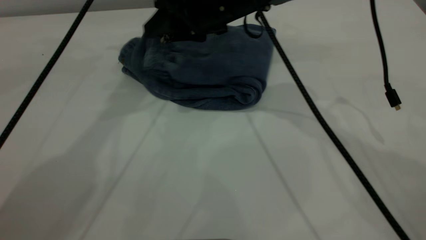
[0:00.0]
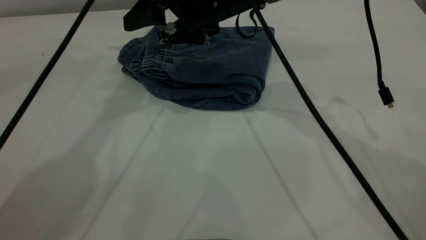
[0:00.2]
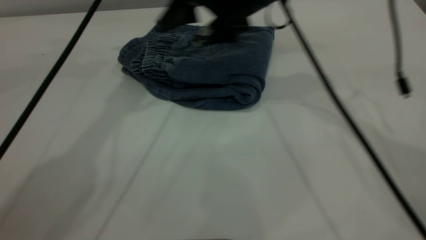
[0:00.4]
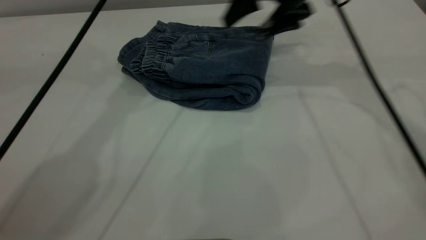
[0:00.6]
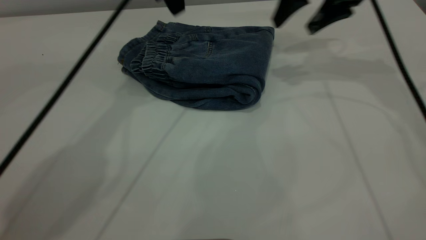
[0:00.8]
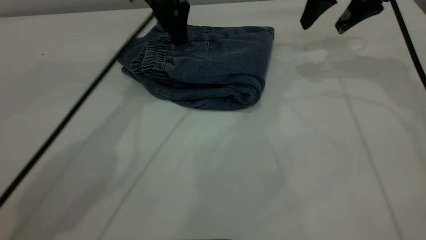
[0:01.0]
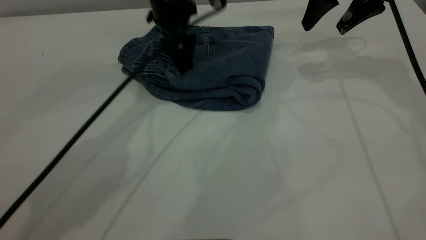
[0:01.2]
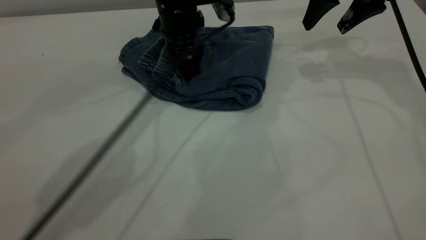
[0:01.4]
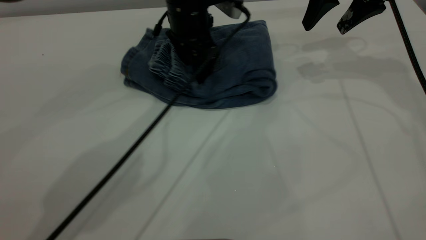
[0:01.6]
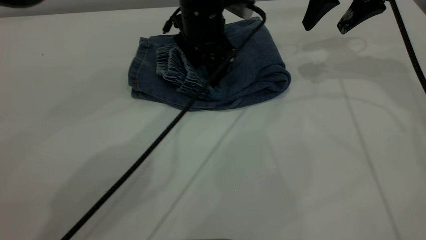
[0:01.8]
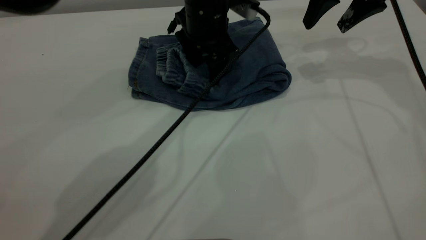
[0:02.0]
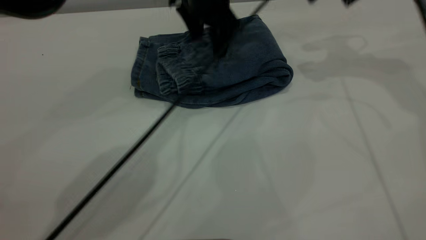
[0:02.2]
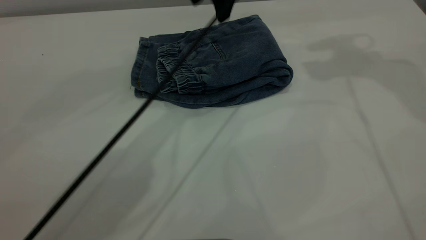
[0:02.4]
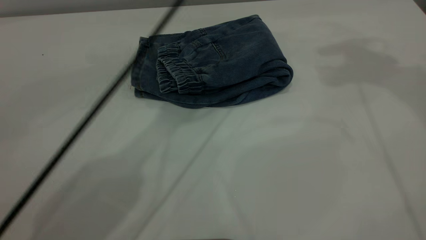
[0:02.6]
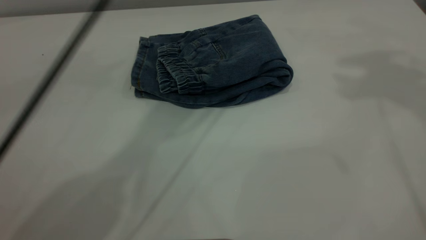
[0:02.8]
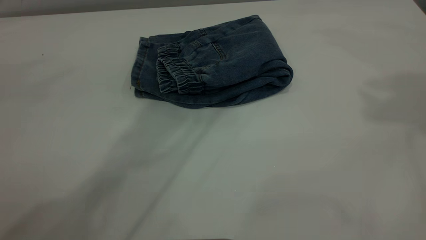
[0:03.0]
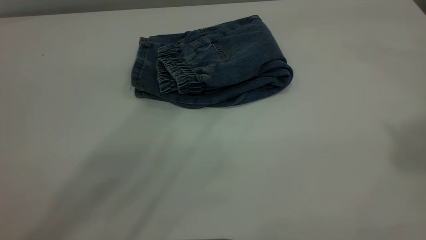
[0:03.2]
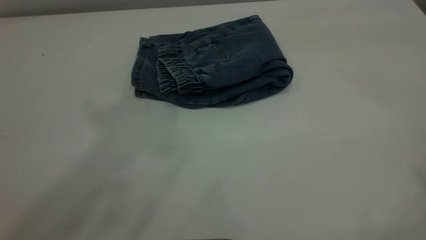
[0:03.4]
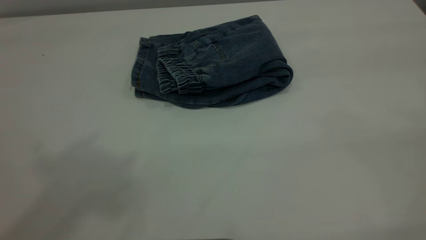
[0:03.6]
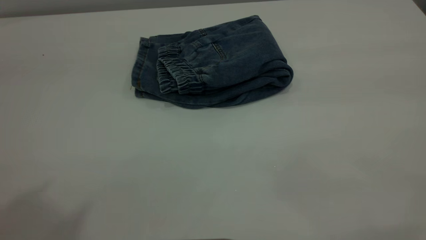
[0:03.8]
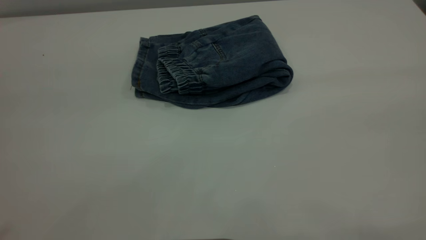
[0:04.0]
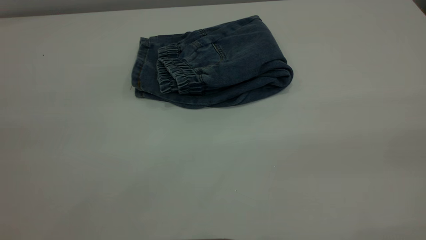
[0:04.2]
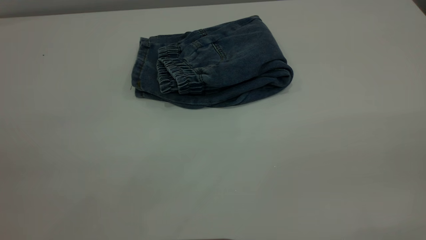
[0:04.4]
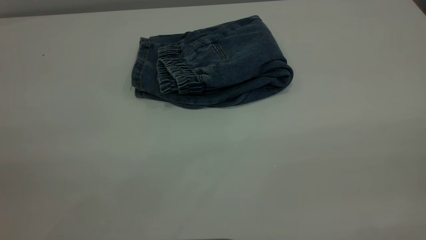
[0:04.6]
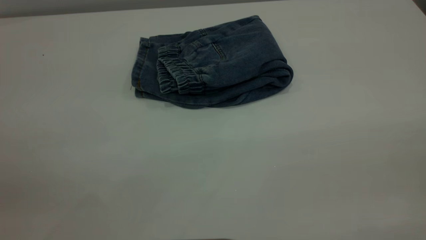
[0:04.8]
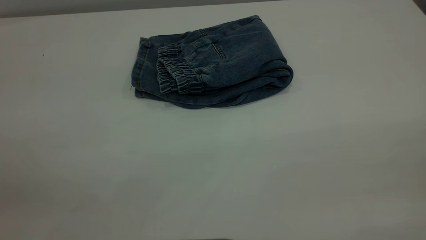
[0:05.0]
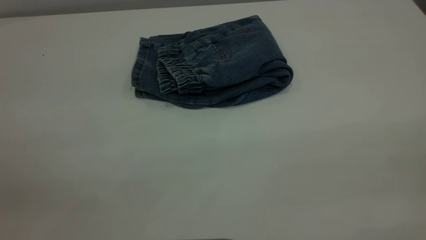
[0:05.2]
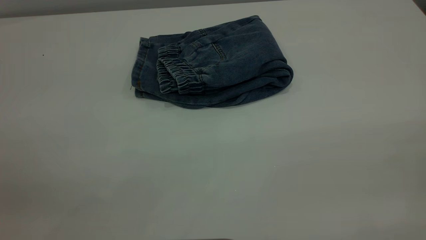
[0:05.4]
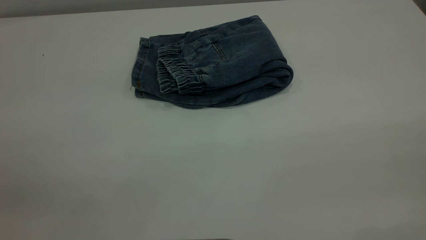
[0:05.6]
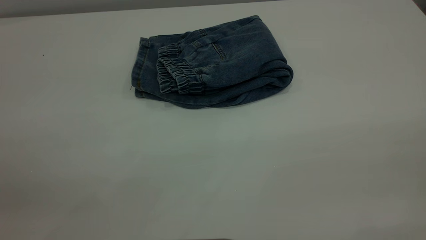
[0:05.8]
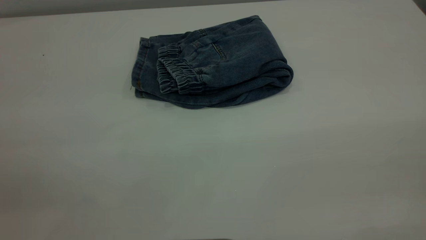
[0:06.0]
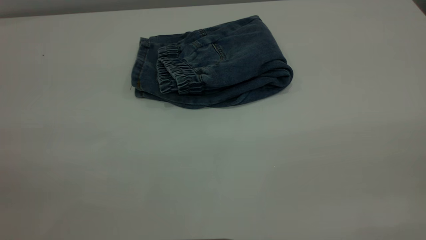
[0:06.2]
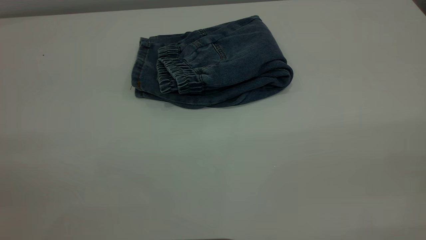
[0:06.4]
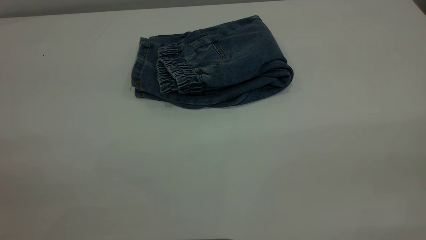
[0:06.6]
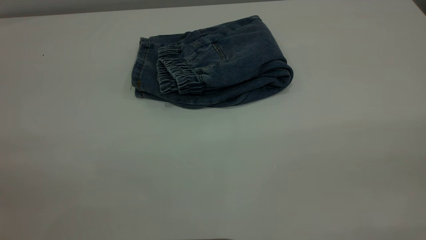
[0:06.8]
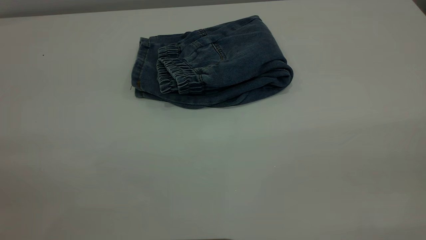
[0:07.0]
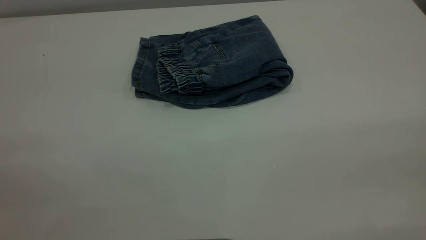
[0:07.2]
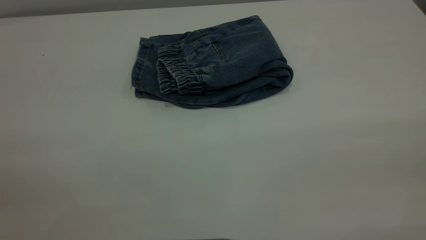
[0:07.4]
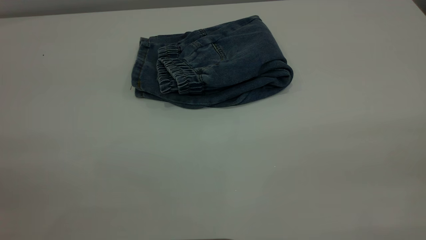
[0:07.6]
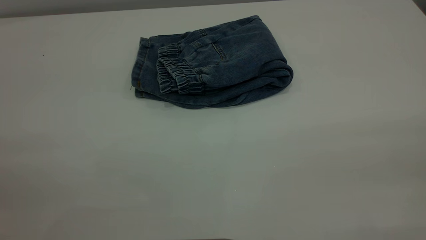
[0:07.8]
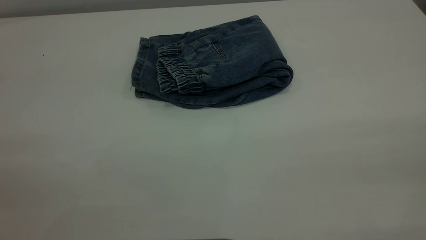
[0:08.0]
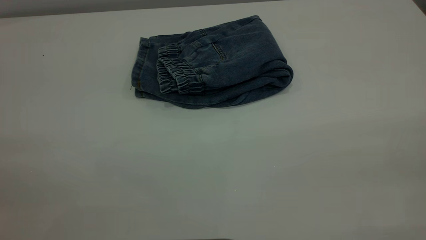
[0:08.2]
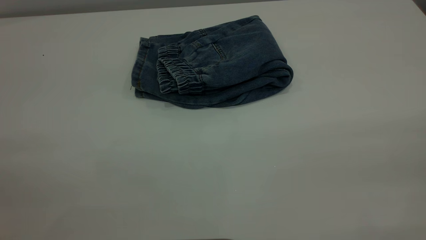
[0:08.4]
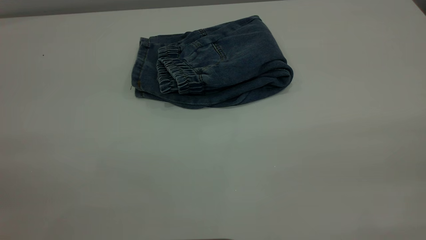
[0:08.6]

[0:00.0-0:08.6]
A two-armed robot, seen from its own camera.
0:00.0 to 0:01.4: The right gripper goes some 20 cm to the right, and opens. The left gripper moves downward and to the right, about 20 cm.
0:01.4 to 0:02.8: The two grippers go about 25 cm upward.
0:02.8 to 0:04.4: The left gripper goes roughly 50 cm backward and to the left.

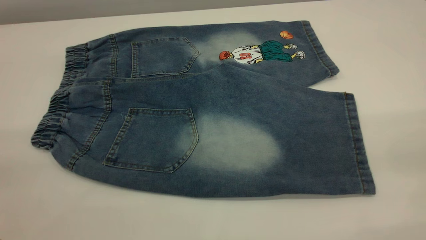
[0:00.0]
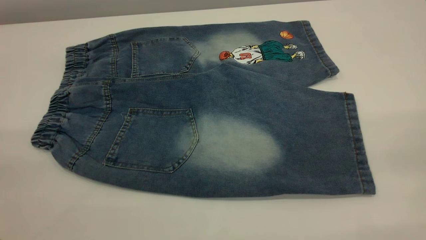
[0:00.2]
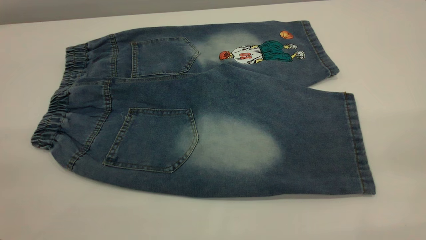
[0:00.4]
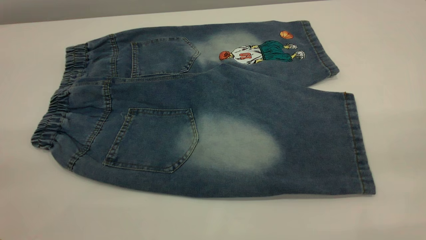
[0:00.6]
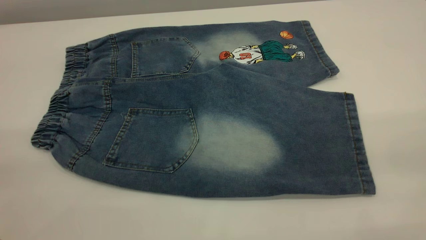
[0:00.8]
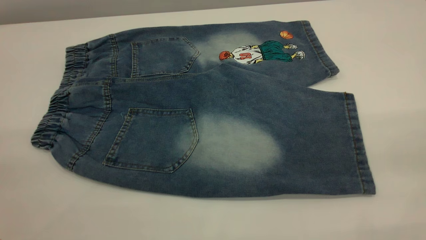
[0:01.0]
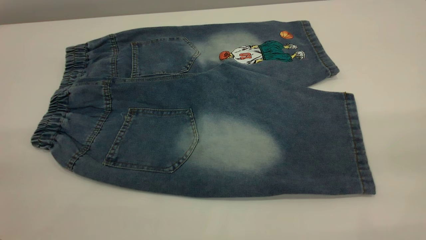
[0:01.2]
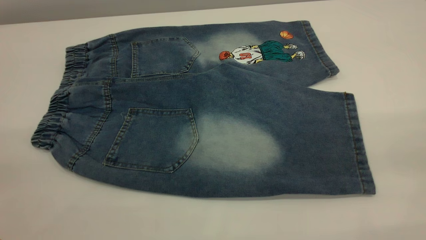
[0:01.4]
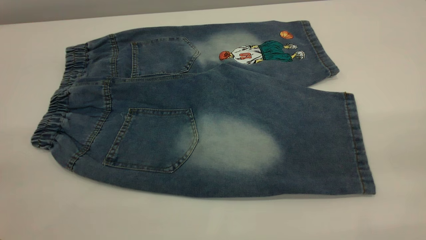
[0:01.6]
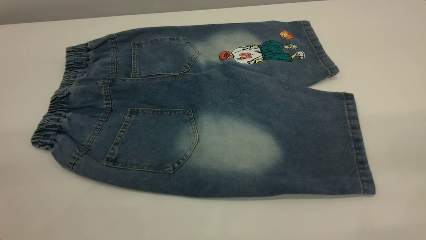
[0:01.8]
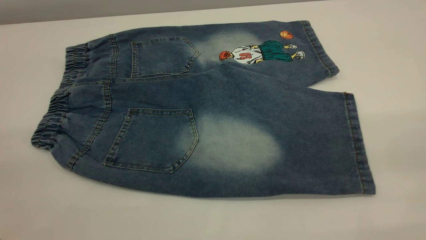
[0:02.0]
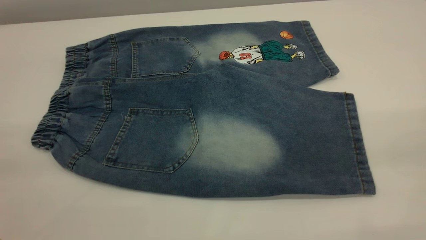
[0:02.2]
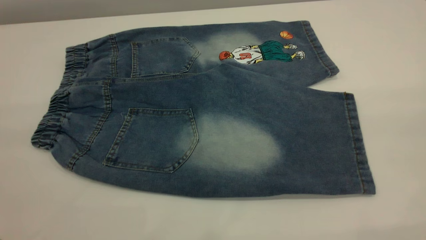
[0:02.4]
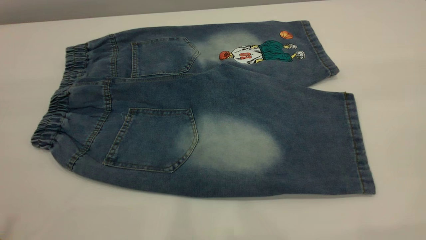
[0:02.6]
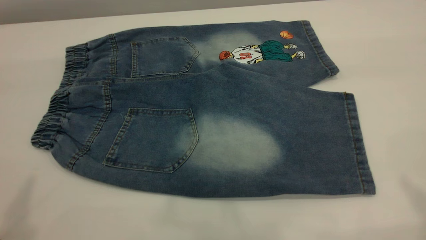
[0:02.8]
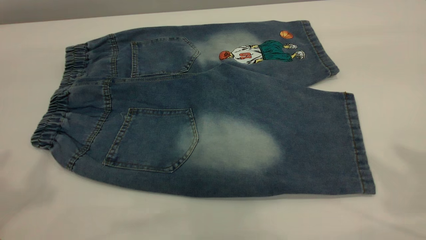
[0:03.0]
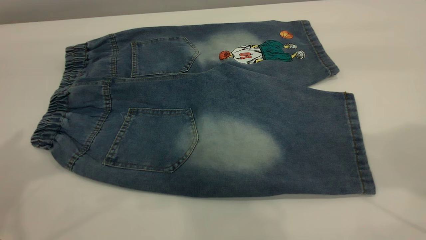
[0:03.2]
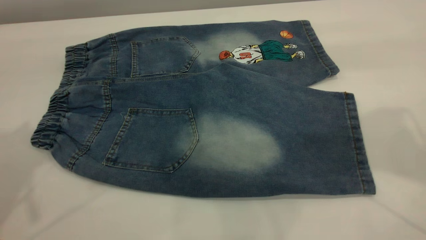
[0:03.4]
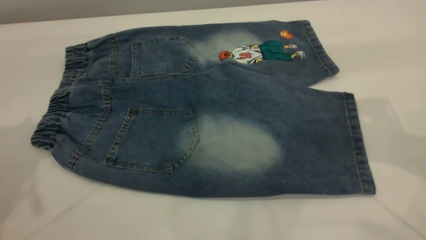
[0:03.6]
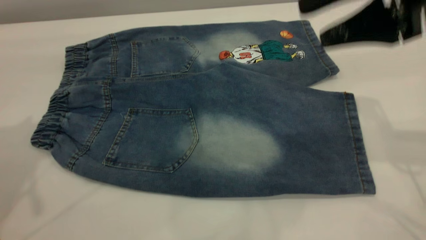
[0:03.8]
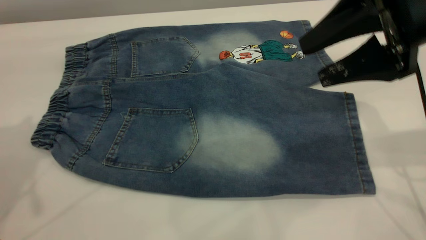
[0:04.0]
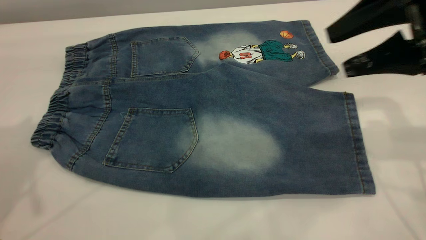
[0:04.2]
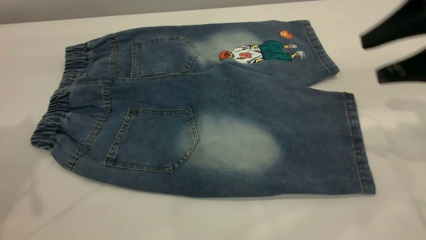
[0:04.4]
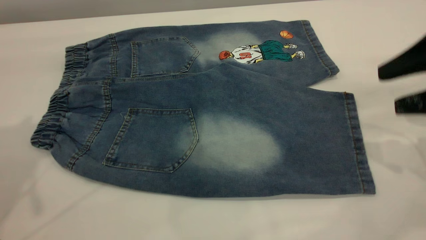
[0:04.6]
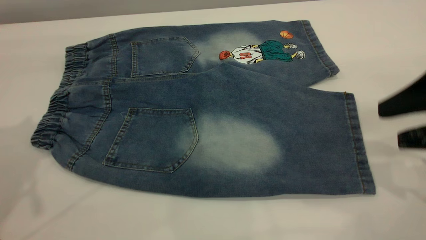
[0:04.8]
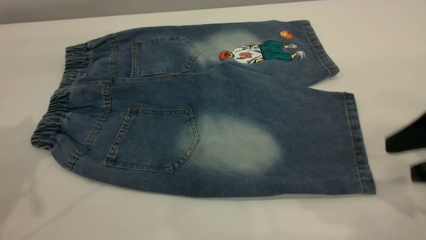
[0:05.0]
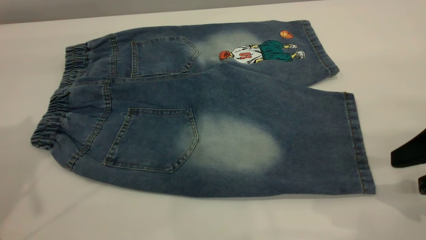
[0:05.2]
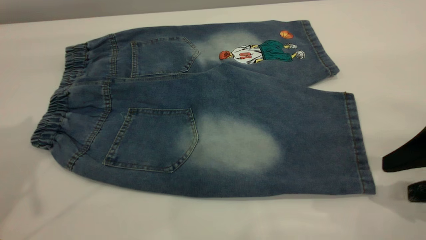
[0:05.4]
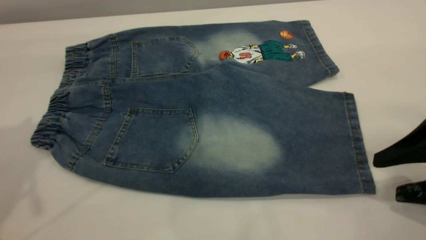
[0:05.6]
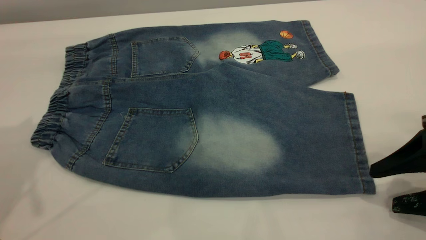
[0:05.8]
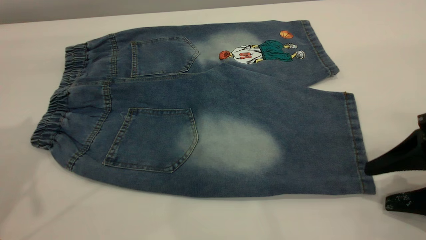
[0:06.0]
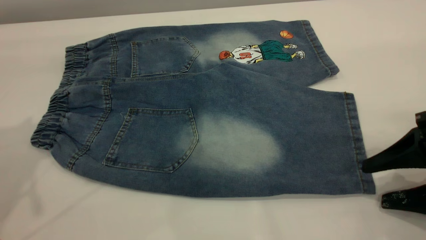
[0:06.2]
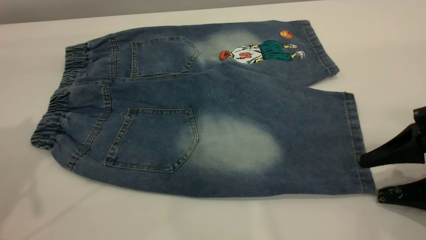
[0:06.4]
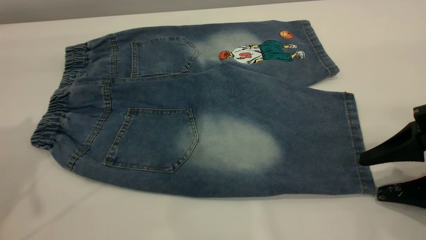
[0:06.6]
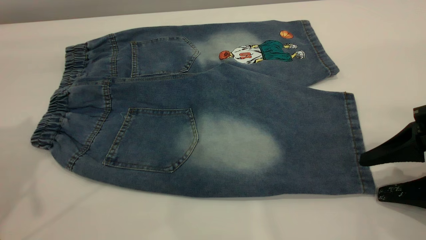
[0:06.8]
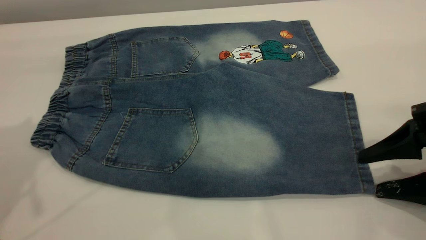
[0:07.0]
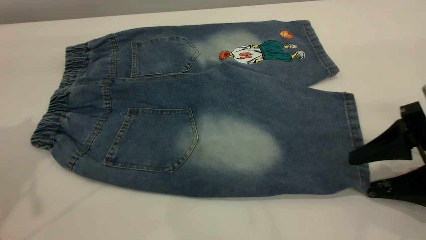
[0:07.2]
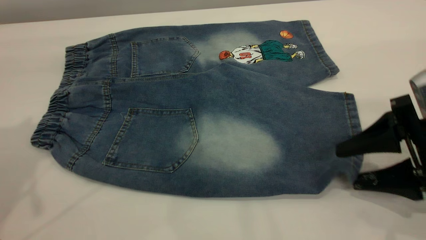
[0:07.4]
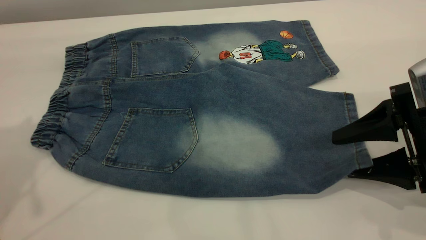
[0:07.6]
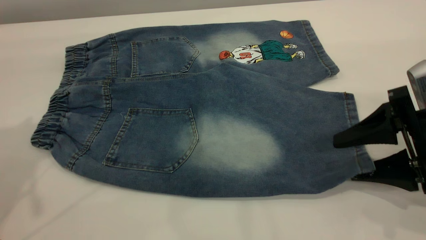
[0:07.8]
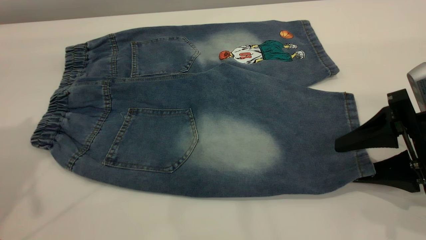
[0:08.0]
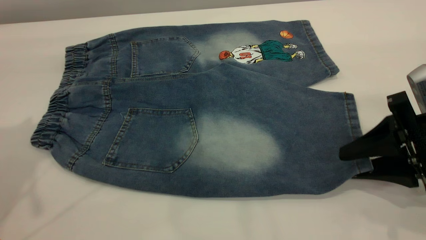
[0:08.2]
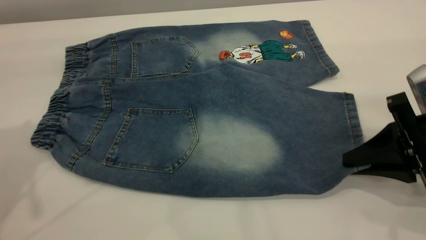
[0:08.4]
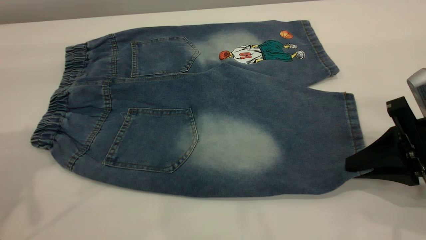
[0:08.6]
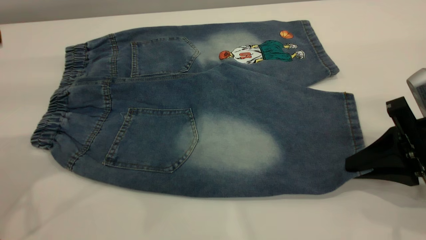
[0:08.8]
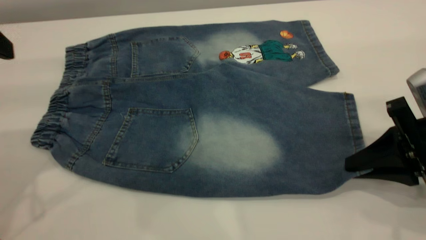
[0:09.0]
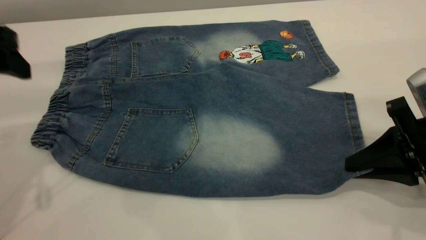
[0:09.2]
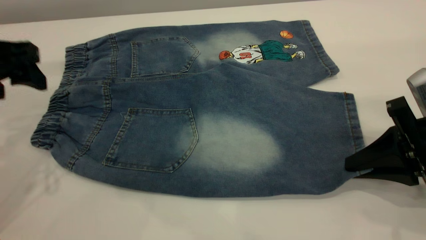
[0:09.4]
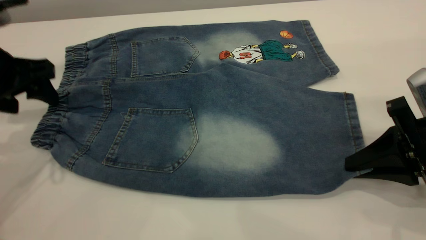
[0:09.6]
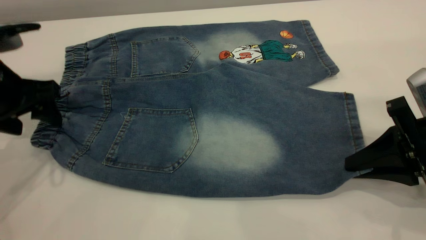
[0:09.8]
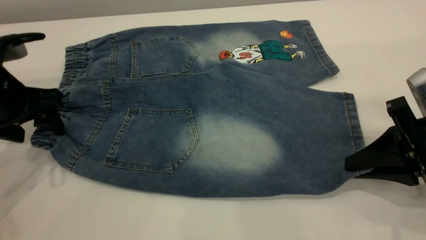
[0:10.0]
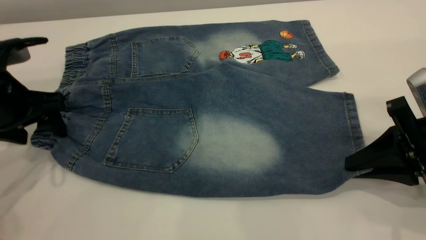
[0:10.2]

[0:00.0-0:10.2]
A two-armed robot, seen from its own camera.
0:00.0 to 0:01.4: Neither gripper changes place.
0:01.4 to 0:03.0: The two grippers go some 20 cm forward.
0:03.0 to 0:04.4: The right gripper goes approximately 25 cm downward and forward, while the left gripper goes approximately 10 cm forward and downward.
0:04.4 to 0:05.8: The right gripper moves downward and backward, approximately 15 cm.
0:05.8 to 0:07.2: The grippers move only a little.
0:07.2 to 0:08.8: The right gripper closes its fingers.
0:08.8 to 0:10.2: The left gripper goes roughly 15 cm downward.
